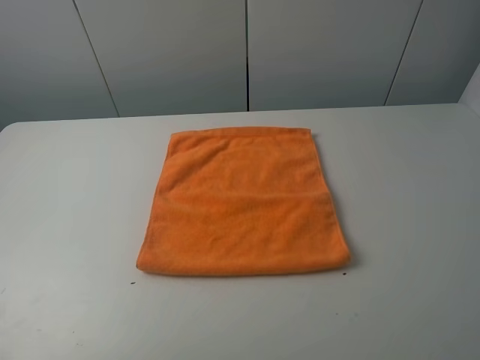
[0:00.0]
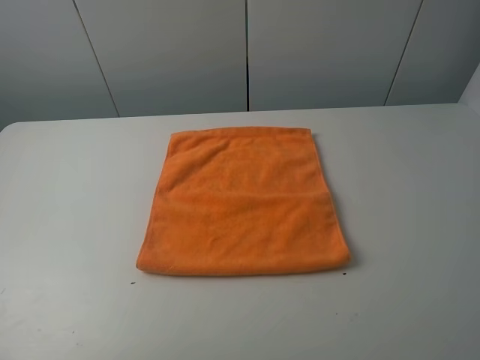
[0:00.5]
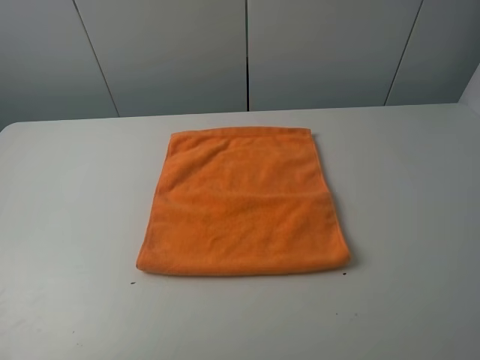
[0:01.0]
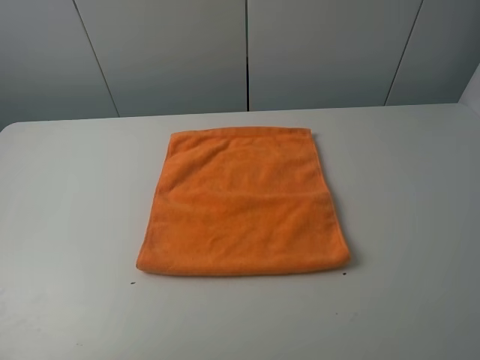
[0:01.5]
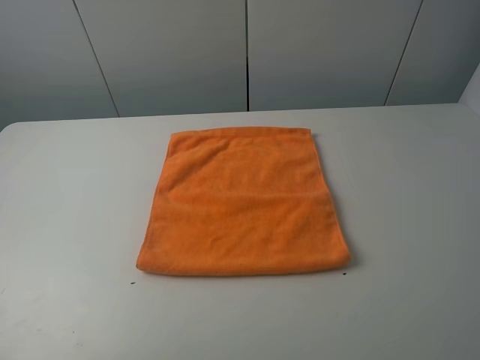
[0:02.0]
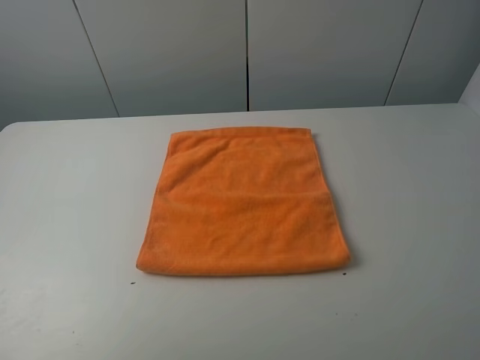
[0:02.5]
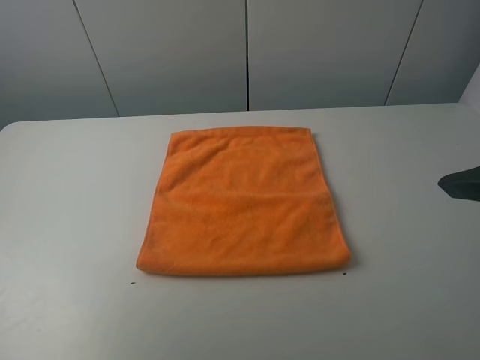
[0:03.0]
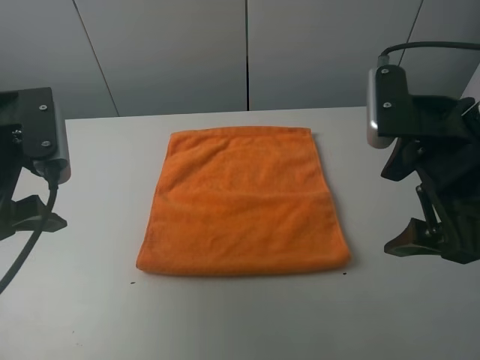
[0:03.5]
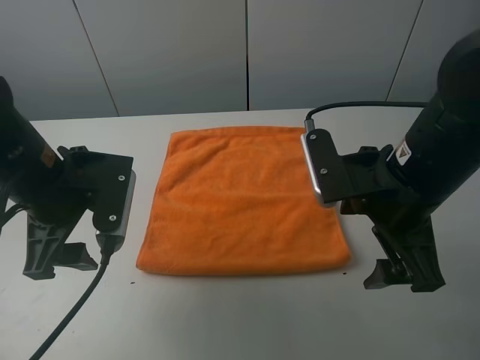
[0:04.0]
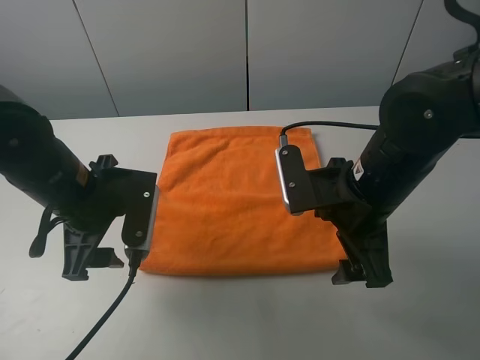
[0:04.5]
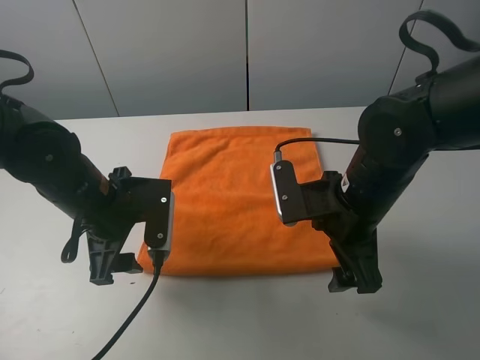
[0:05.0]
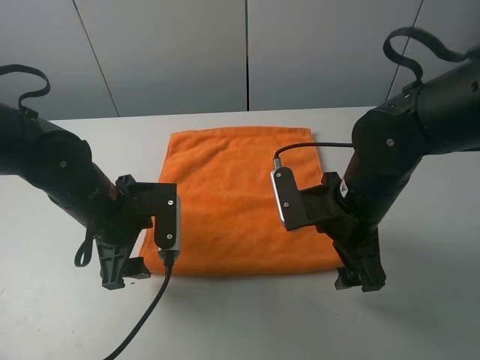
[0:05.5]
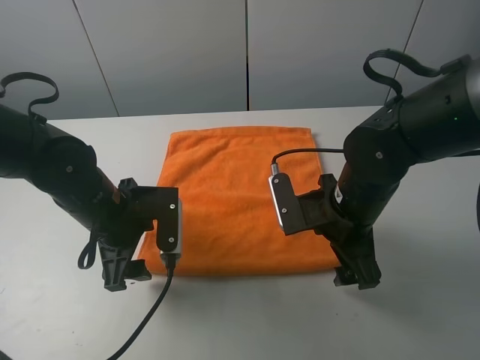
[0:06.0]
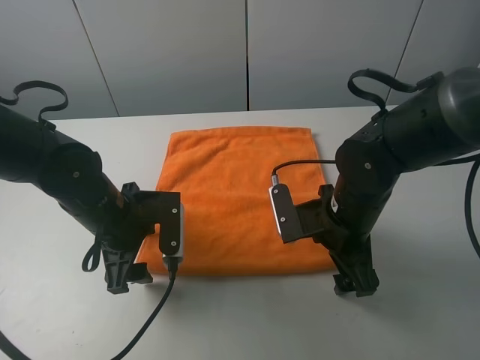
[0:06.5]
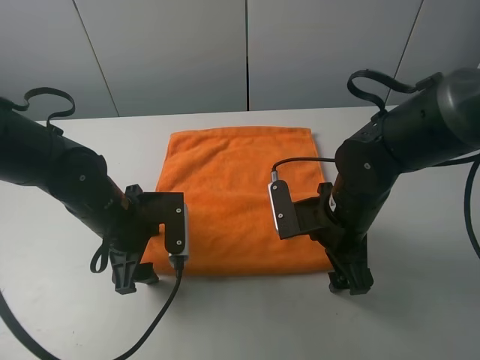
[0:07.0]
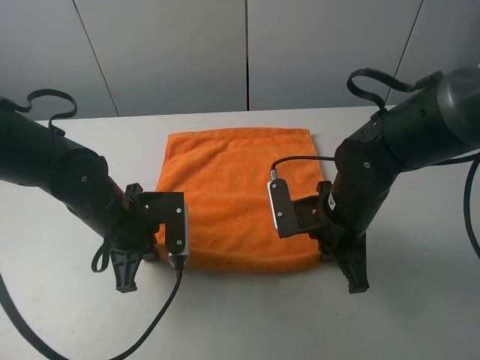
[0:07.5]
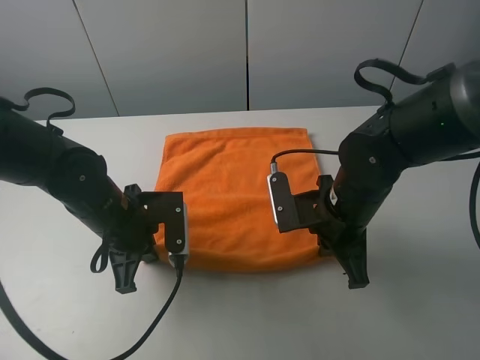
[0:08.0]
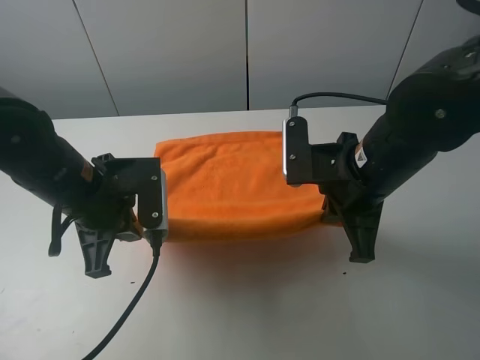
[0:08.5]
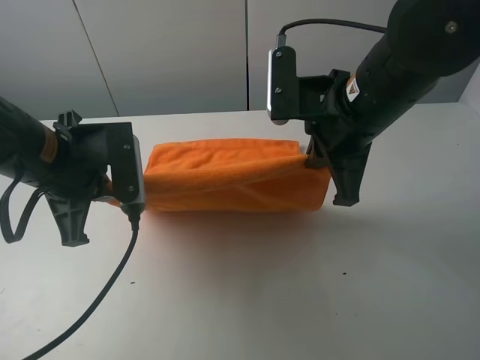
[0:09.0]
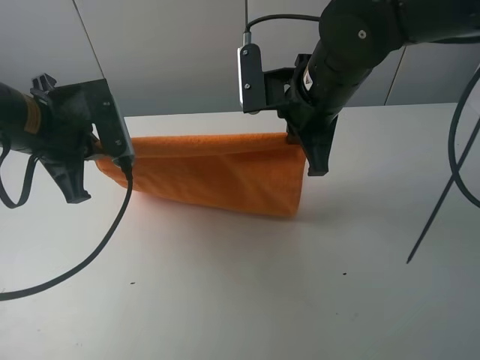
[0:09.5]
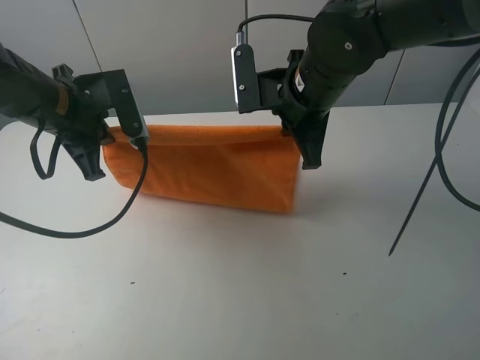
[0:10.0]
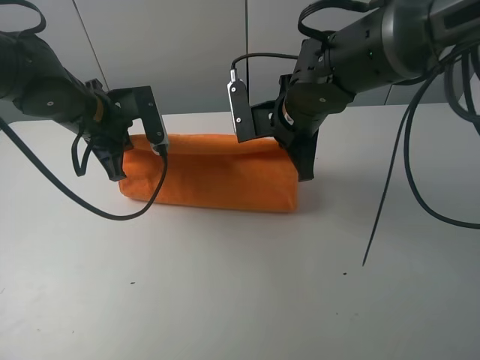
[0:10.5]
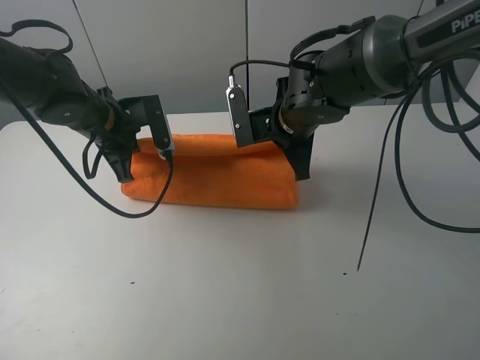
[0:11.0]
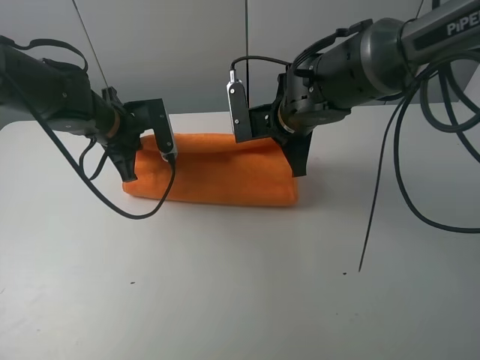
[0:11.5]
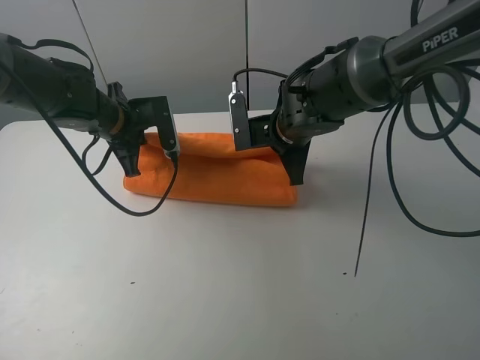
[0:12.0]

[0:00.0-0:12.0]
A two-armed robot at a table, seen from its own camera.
Task of the whole recording: fold the towels on the table.
Step, 0:00.0 to 0:07.5: Grasp the orange towel with the left gripper.
0:02.0 to 0:04.0: The right gripper moves forward, to the left and downward, approximately 25 cm. The left gripper shifts some 25 cm forward, to the right and downward.
0:04.0 to 0:06.0: Both grippers move downward, approximately 10 cm.
0:06.0 to 0:08.0: The left gripper closes. Meanwhile the right gripper closes its fingers.
0:08.0 to 0:10.0: The right gripper shifts about 15 cm upward and forward; the left gripper is displaced upward, forward and to the left by about 15 cm.
0:10.0 to 0:12.0: The left gripper heads forward and downward, covering roughly 10 cm. The right gripper heads downward, covering about 10 cm.

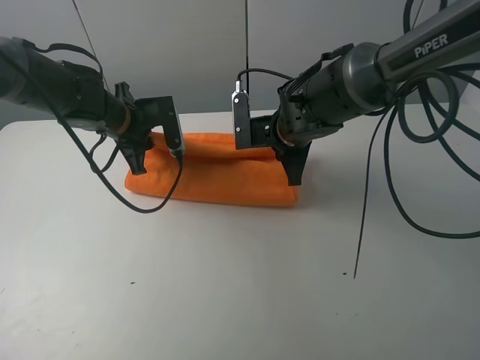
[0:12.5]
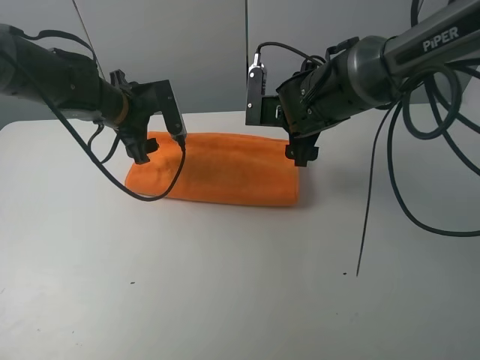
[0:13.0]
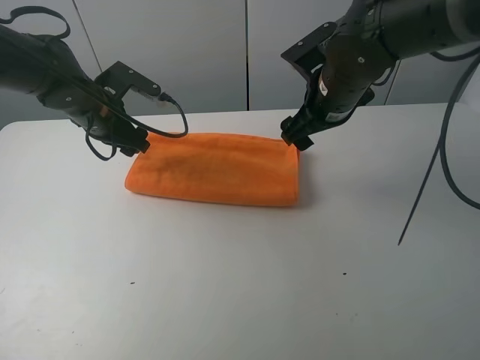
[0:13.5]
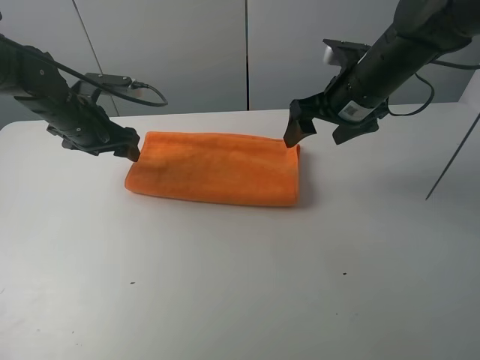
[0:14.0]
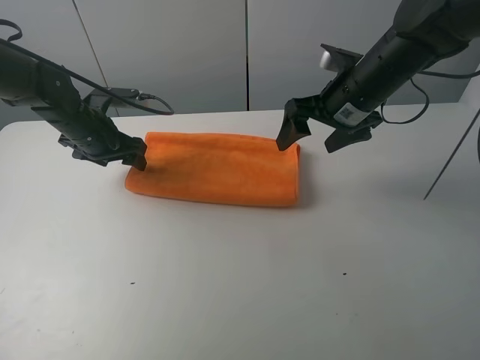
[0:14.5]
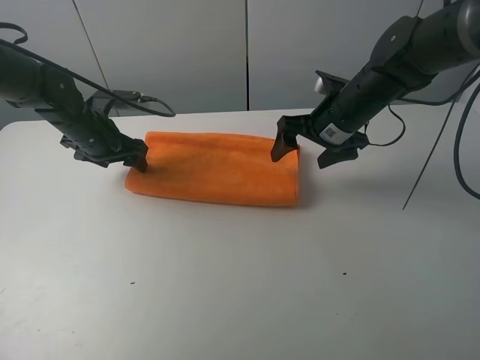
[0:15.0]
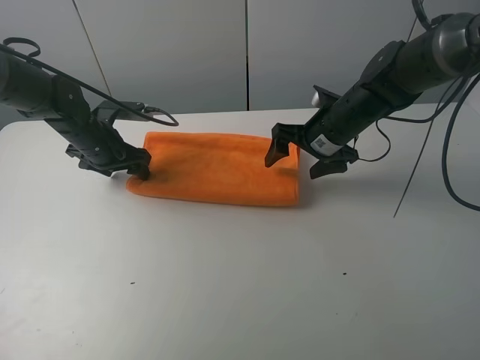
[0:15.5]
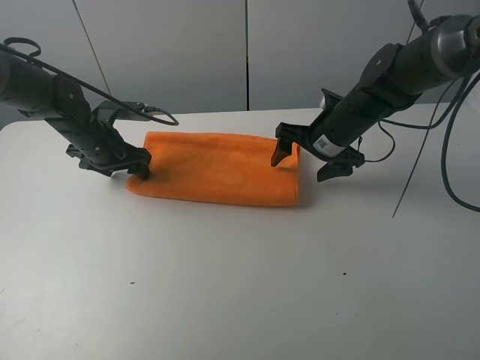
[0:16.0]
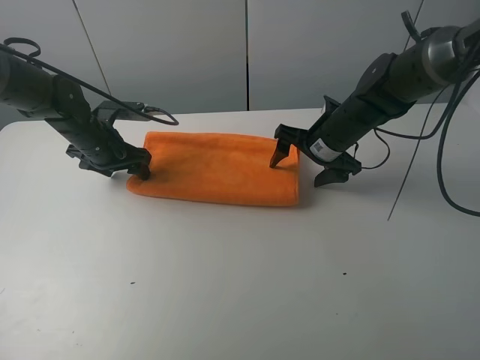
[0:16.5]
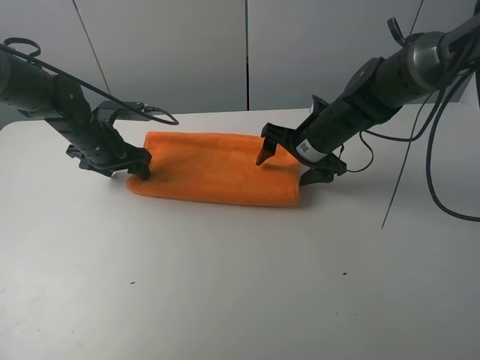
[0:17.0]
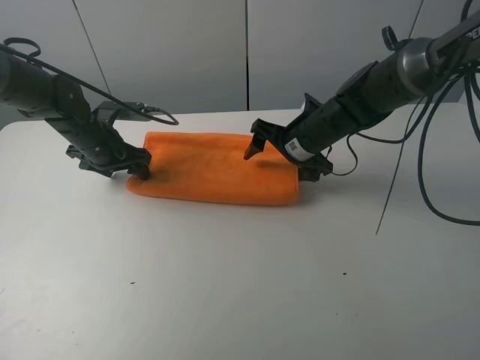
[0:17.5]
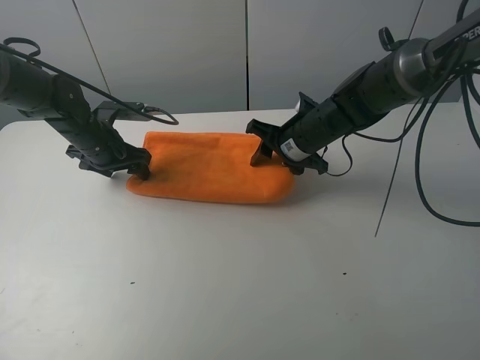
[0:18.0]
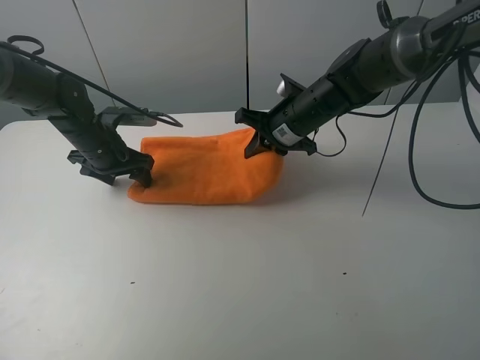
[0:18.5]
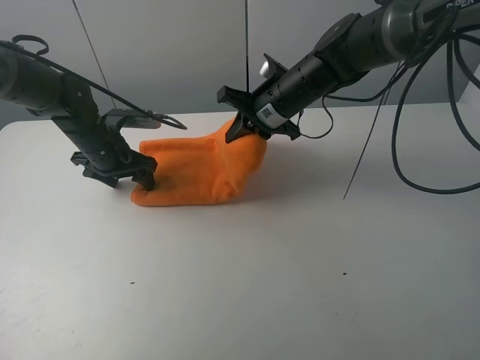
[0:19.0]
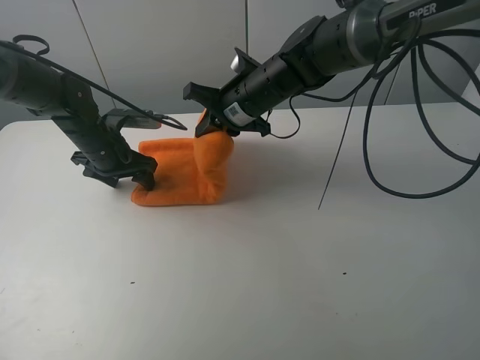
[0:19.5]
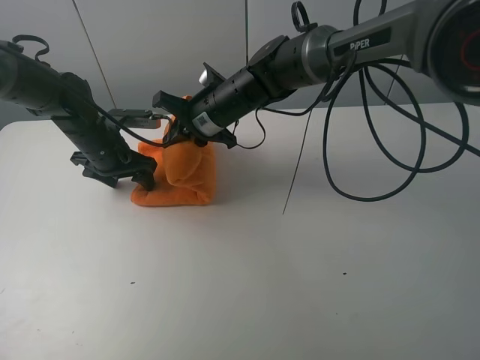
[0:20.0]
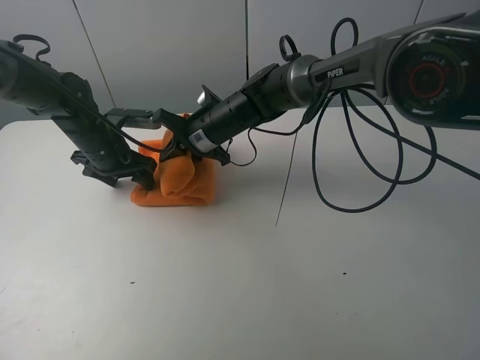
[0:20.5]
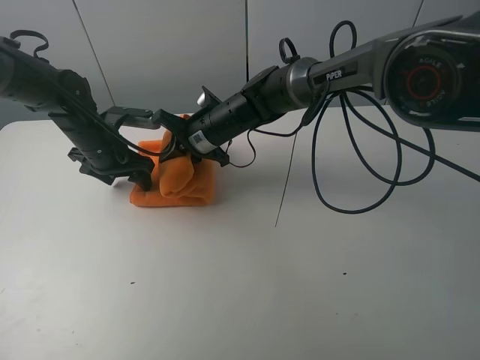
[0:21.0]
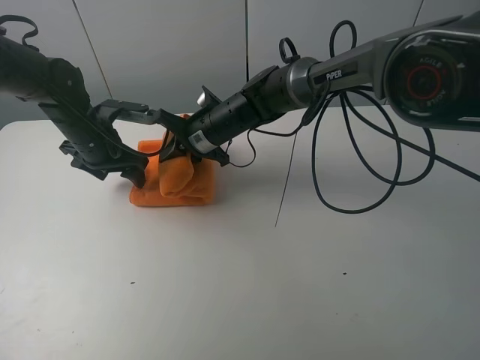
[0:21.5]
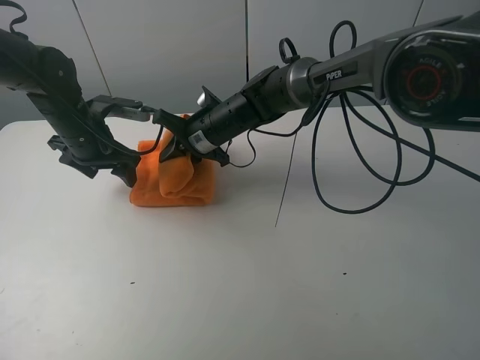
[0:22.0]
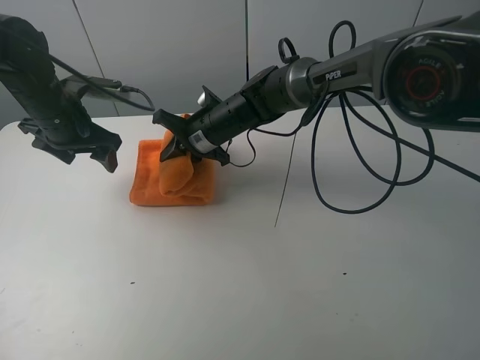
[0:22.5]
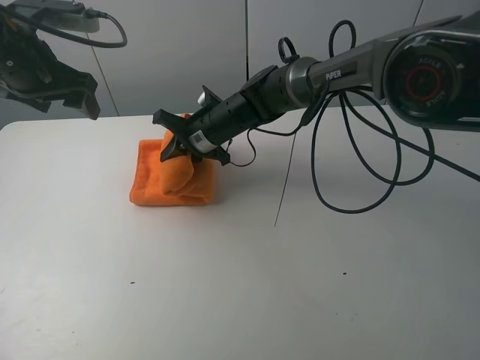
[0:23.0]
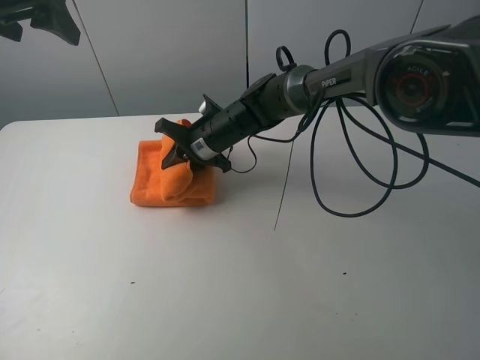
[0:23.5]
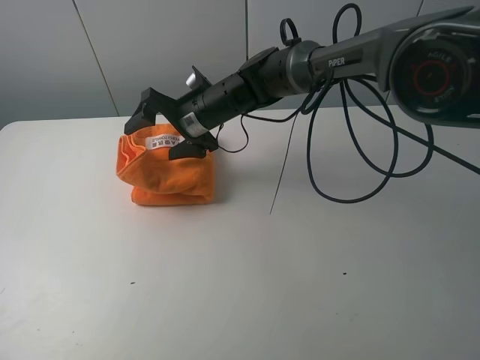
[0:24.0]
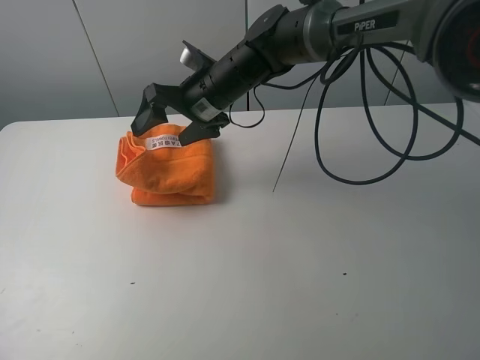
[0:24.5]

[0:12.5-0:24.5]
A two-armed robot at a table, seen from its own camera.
Task of the whole recording: fold the towels on the table.
Step, 0:14.0 to 0:15.0: Press on the orange towel with the left gripper.
Step, 0:15.5 to 0:24.0: Fold the orange towel from right to left with right gripper.
0:12.5 to 0:14.5: The right gripper moves to the right and upward, roughly 10 cm, and opens; the left gripper travels to the left by roughly 5 cm, and opens.
0:14.5 to 0:16.5: The right gripper moves downward, roughly 10 cm.
0:16.5 to 0:18.5: The right gripper goes about 5 cm to the left, and closes its fingers.
0:18.5 to 0:20.5: The right gripper heads to the left, covering about 15 cm.
0:20.5 to 0:22.5: The left gripper shifts approximately 10 cm upward.
0:22.5 to 0:24.5: The left gripper shifts approximately 25 cm upward, while the right gripper heads upward, covering about 10 cm, and opens its fingers.

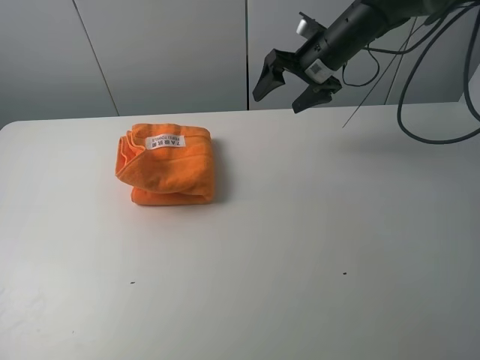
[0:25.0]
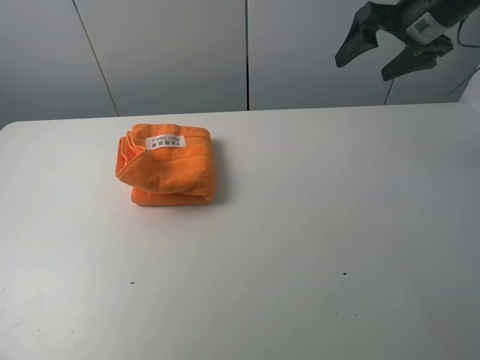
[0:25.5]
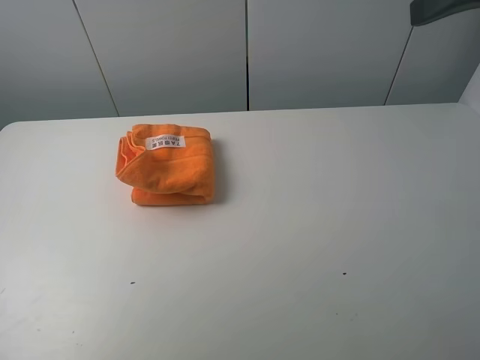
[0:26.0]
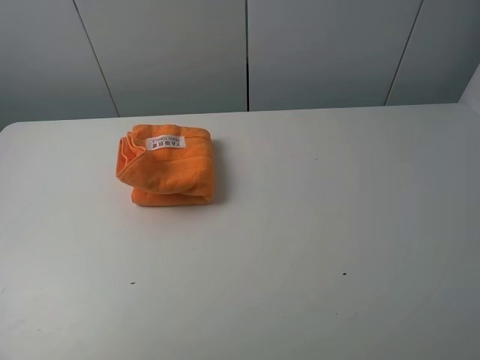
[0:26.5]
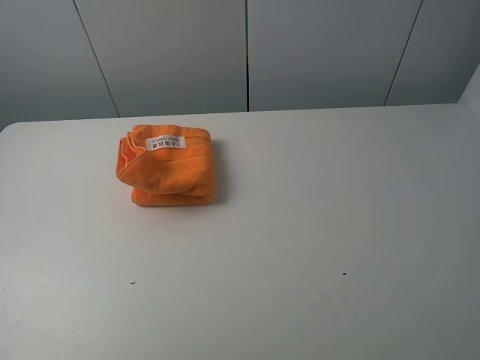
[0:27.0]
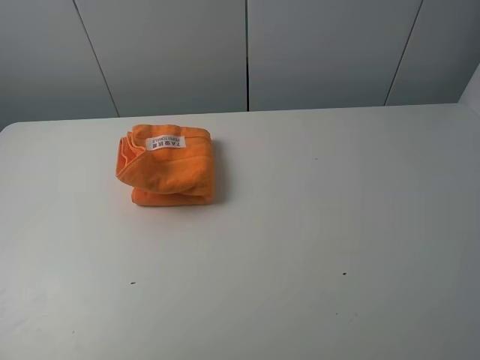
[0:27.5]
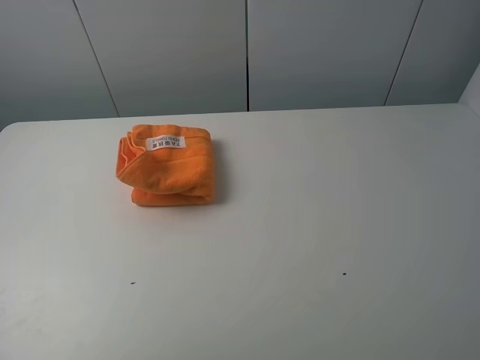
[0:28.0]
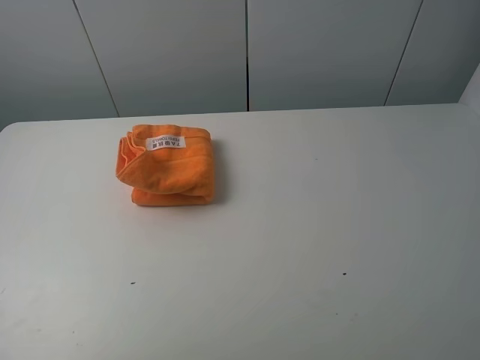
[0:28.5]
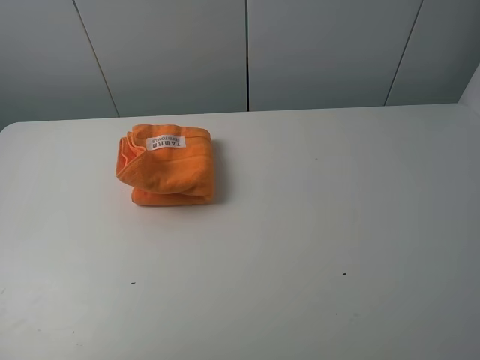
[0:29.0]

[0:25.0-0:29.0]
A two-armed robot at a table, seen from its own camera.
Task of the whole recording: fold the towels on the table.
0:25.0 to 0:27.0: The left gripper moves backward and downward, approximately 30 cm, while the right gripper goes some 50 cm backward.
